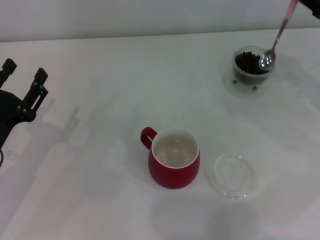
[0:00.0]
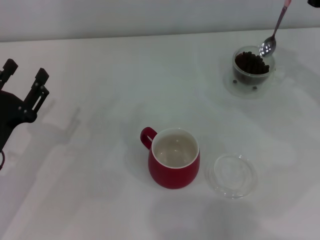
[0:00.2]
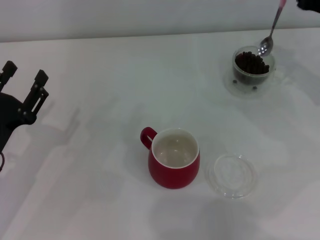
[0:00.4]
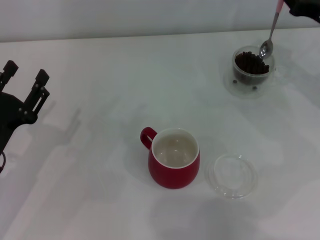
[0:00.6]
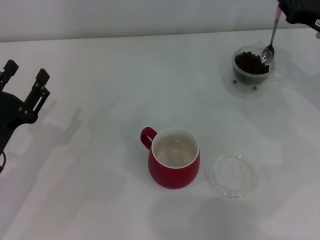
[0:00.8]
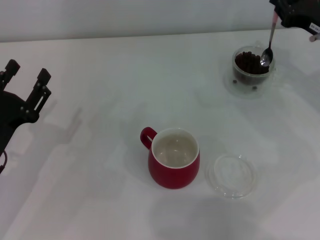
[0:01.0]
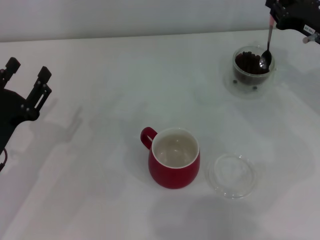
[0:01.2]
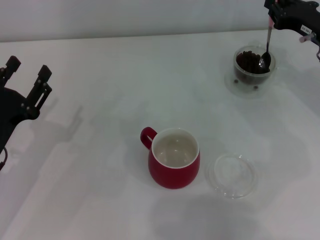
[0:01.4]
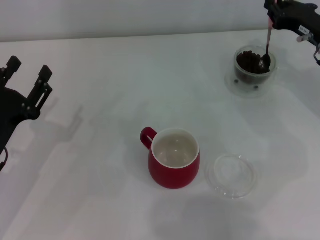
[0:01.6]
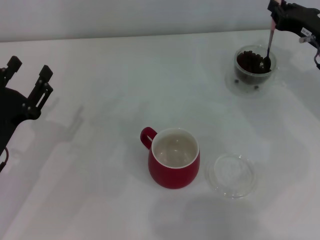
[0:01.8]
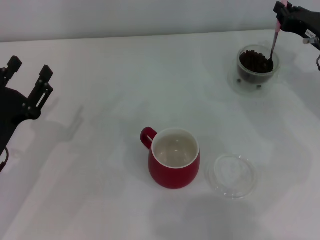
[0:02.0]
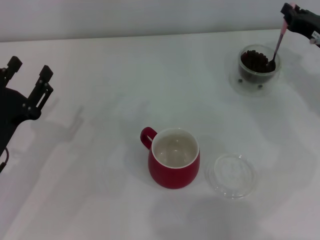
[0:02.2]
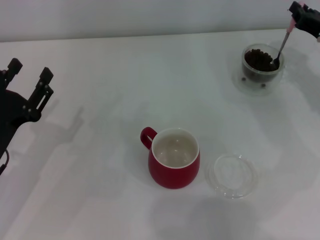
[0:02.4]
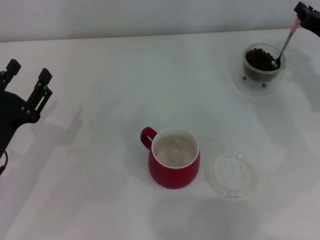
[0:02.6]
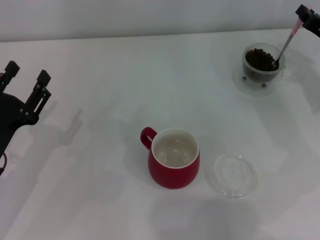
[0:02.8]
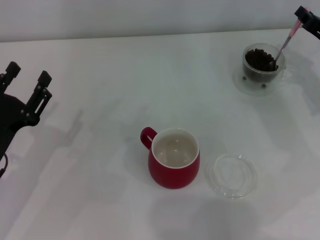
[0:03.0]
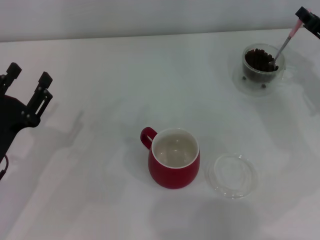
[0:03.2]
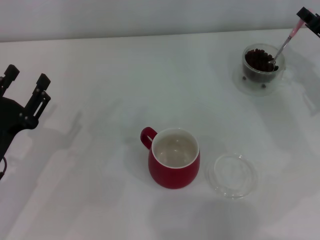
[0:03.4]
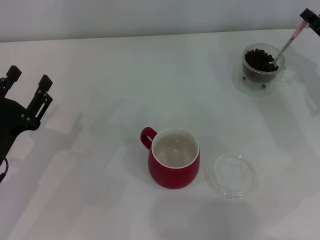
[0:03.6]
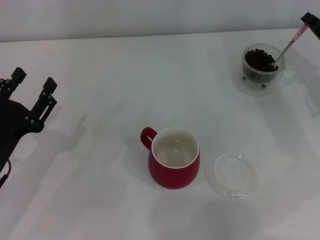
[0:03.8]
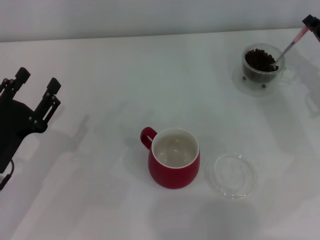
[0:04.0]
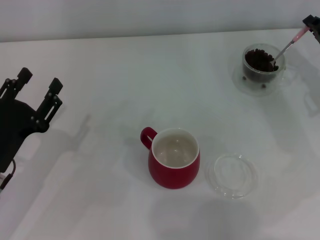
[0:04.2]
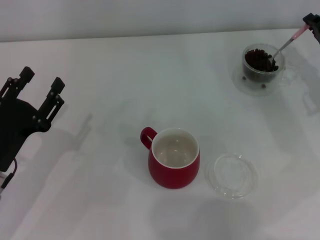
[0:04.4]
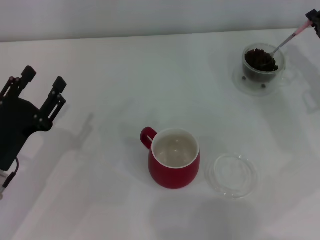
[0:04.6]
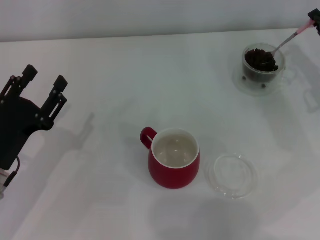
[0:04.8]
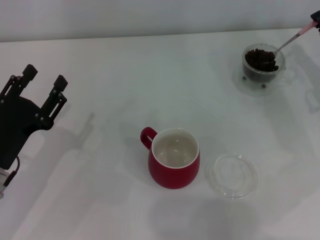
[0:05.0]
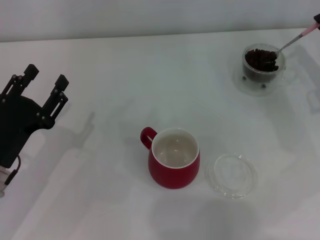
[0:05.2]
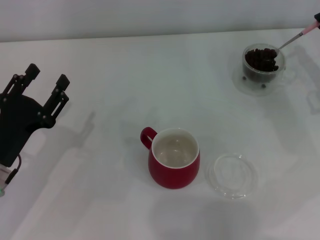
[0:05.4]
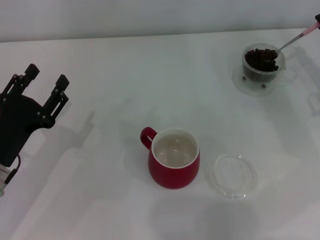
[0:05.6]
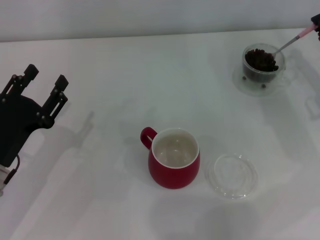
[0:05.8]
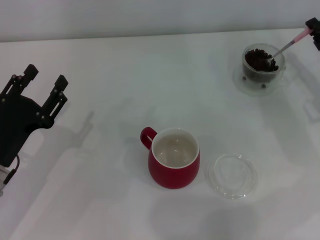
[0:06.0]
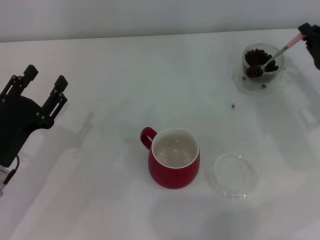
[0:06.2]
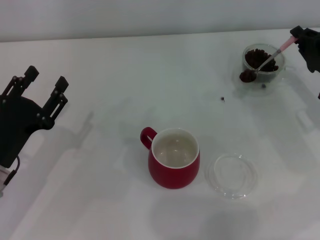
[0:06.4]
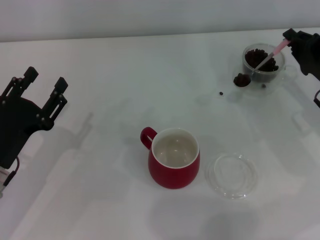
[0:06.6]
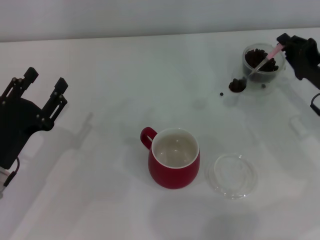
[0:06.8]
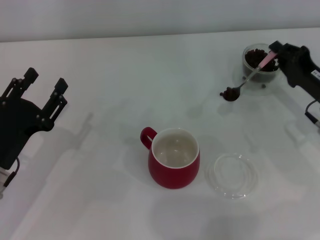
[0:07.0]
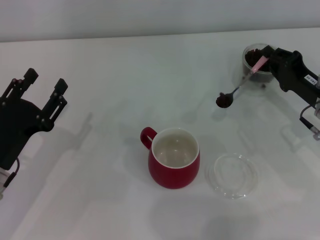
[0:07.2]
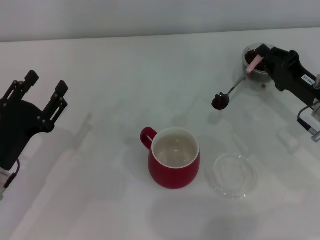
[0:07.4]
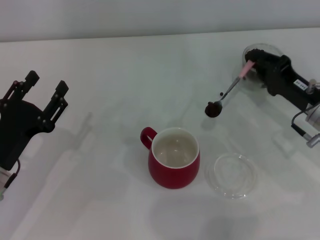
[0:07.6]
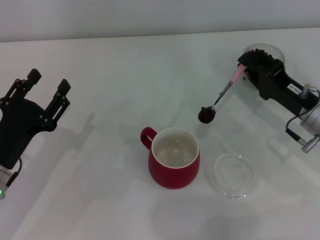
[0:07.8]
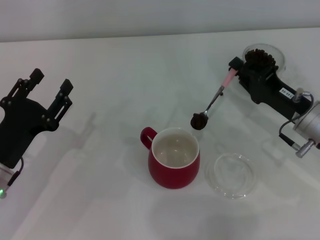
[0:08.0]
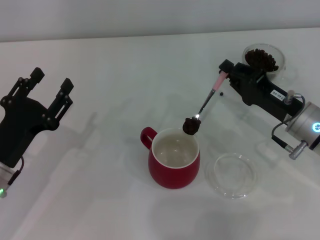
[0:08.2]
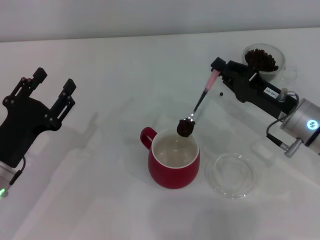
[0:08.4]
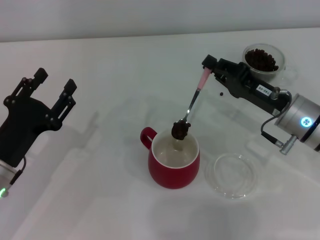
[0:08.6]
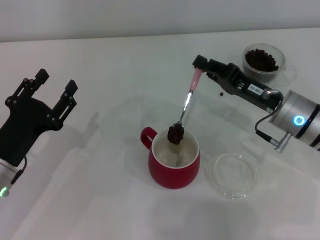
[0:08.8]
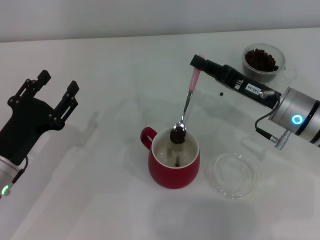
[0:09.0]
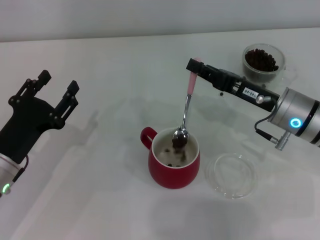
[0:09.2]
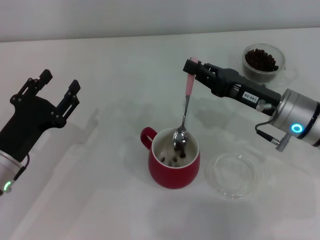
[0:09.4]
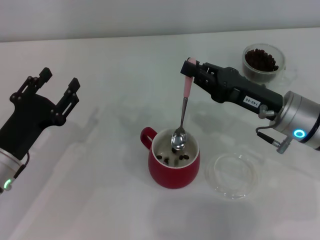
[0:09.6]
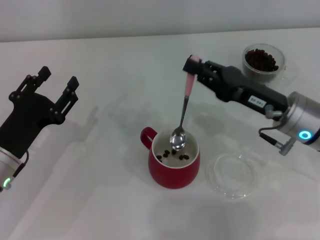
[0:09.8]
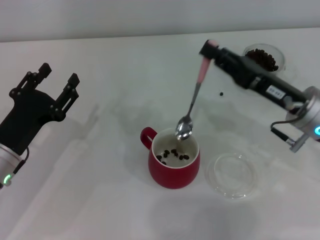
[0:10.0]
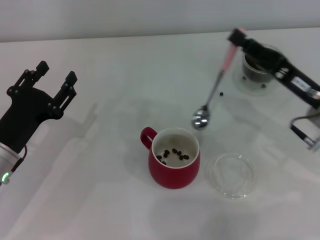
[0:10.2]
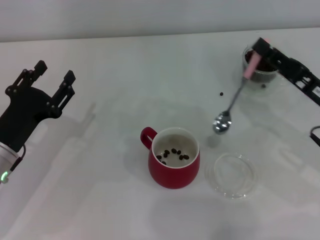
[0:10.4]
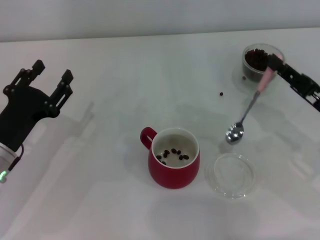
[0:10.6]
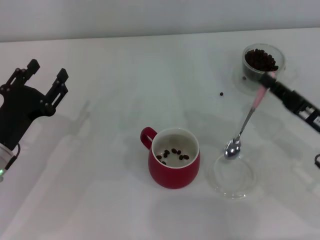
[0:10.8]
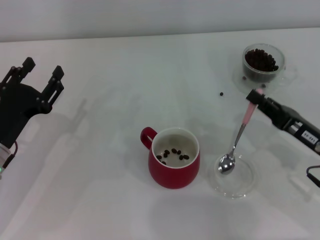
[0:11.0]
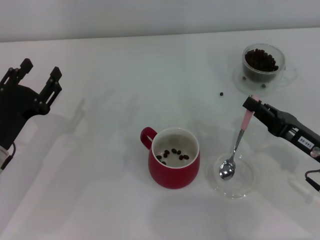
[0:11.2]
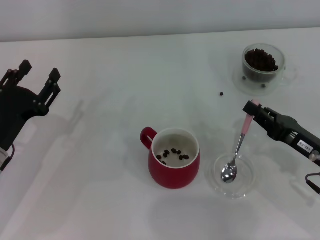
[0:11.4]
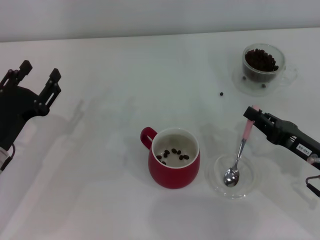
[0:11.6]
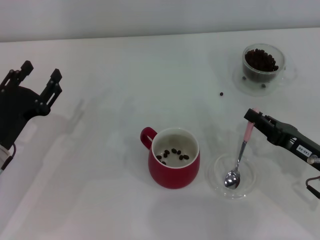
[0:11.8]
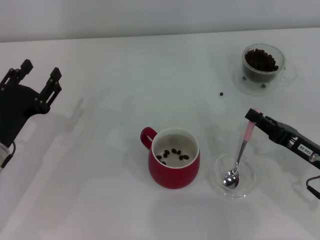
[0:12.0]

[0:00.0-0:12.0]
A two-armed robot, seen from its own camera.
Task of the whole recording: Use a pink spoon to take out the coffee beans from the glass and pour them into the red cup.
Step, 0:00.0 to 0:09.8: Scoop a spoonful of beans into the cup with the right gripper.
0:00.0 to 0:01.6: The right gripper ends up some 5 cm from where it was.
0:04.4 to 0:06.0: There are only small adjustments of the grippers.
0:06.0 to 0:07.6: The right gripper heads to the left, covering roughly 5 cm.
0:07.6 to 0:09.0: The right gripper moves to the left, approximately 5 cm.
0:09.0 to 0:10.4: The right gripper heads to the right, covering some 5 cm.
0:10.4 to 0:12.0: The right gripper heads downward, covering some 5 cm.

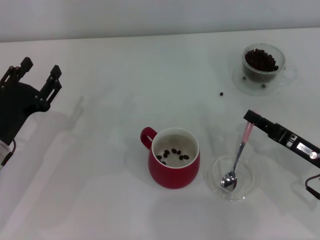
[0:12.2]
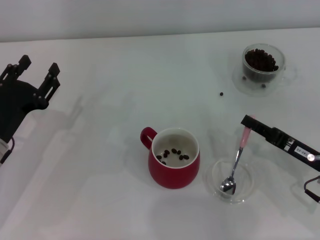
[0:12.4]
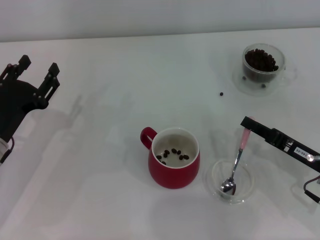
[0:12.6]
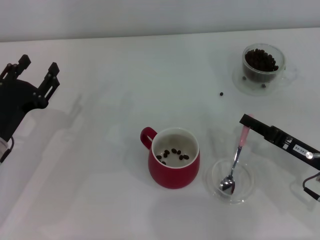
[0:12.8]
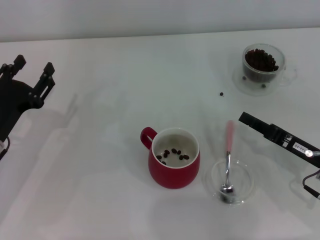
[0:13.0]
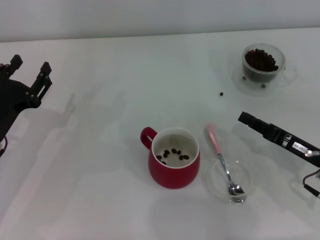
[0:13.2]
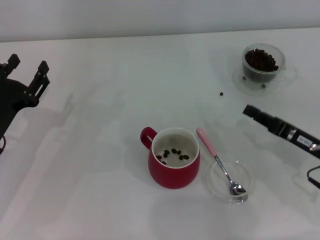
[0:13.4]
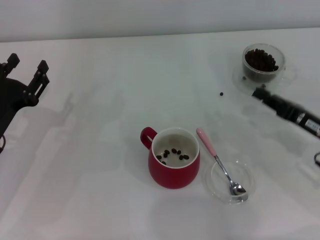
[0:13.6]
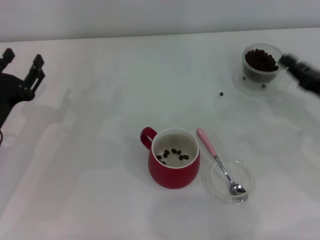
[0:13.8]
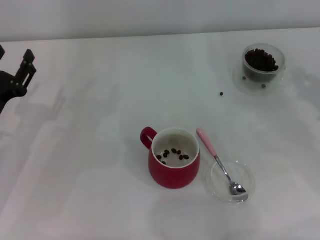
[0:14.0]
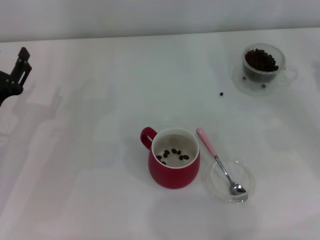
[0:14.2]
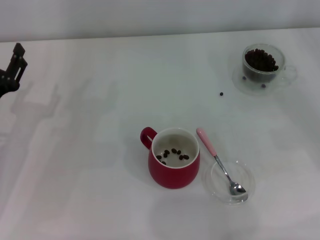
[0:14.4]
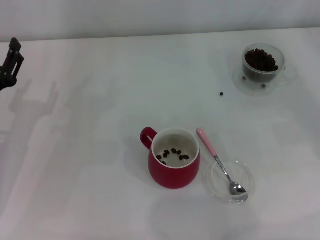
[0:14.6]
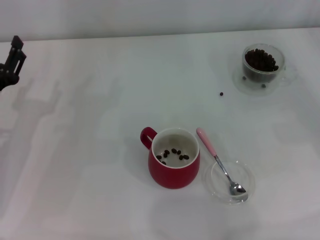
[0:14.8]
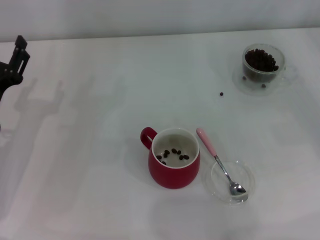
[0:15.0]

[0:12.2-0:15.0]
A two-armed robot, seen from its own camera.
Task of the whole recording: Use a pink spoon to take out the coffee beans from the glass and pour them into the red cup.
0:12.2 to 0:13.6: The grippers make only small movements.
0:13.6 to 0:15.0: The right gripper goes approximately 15 cm to the right and upward.
